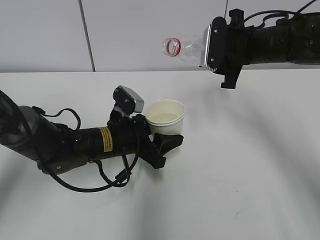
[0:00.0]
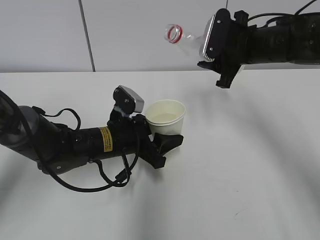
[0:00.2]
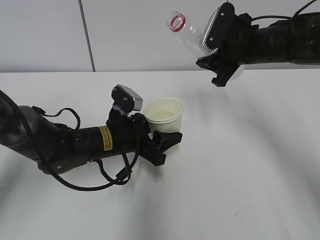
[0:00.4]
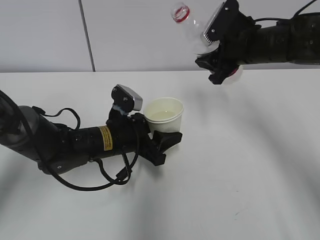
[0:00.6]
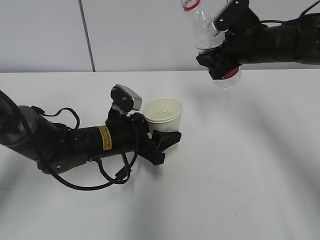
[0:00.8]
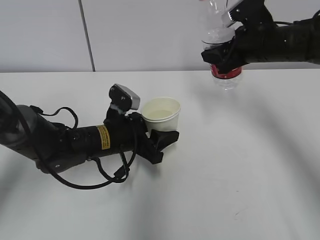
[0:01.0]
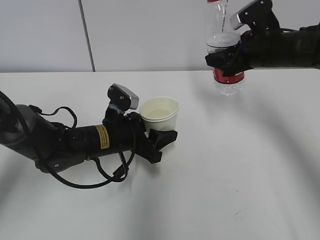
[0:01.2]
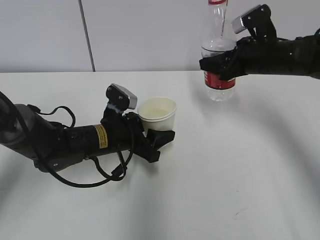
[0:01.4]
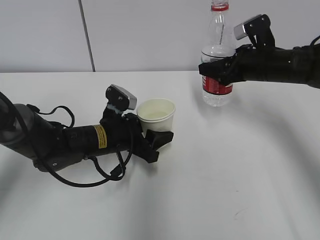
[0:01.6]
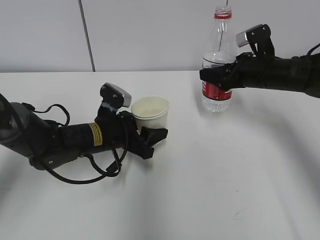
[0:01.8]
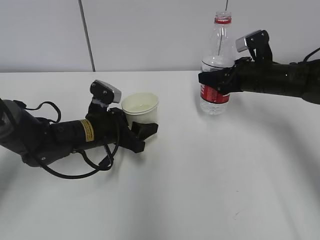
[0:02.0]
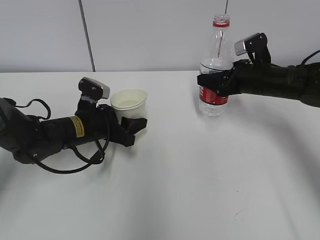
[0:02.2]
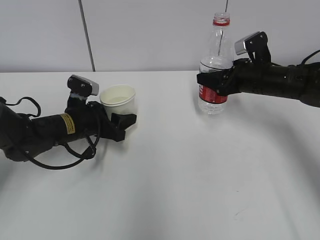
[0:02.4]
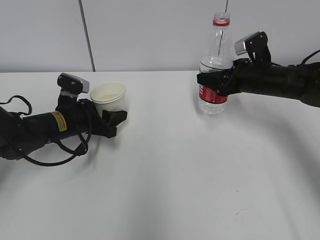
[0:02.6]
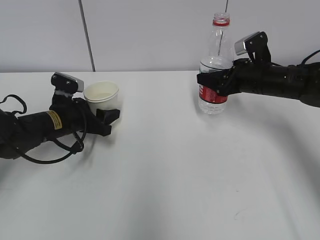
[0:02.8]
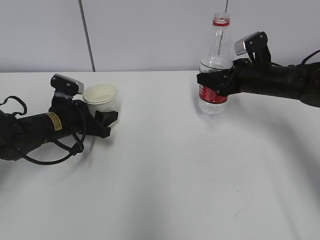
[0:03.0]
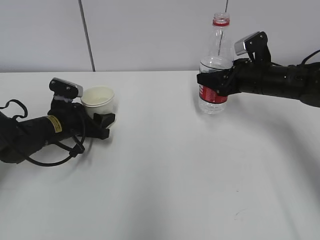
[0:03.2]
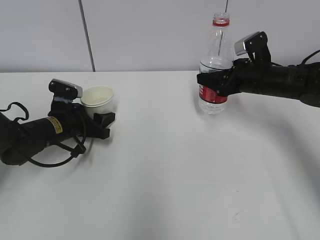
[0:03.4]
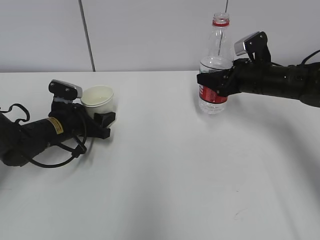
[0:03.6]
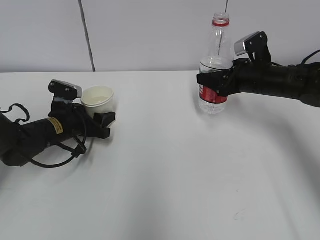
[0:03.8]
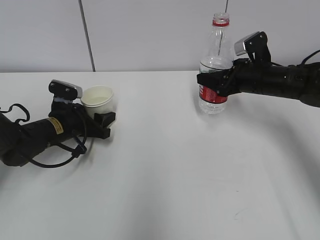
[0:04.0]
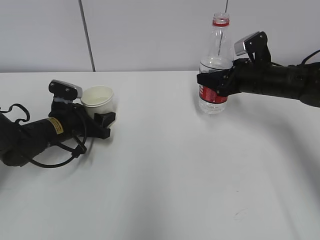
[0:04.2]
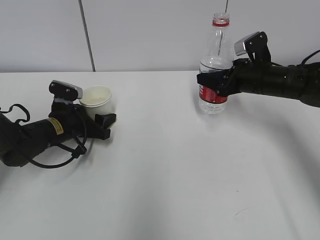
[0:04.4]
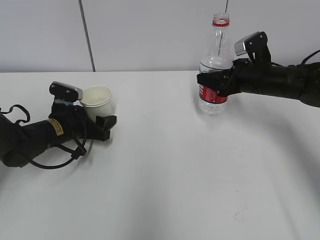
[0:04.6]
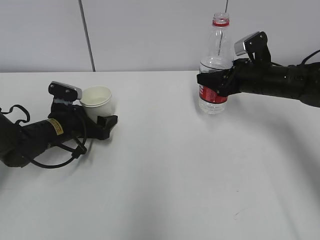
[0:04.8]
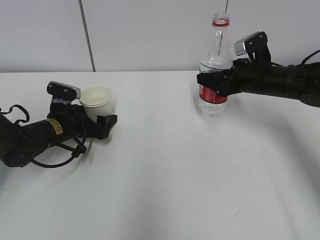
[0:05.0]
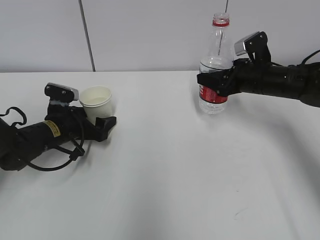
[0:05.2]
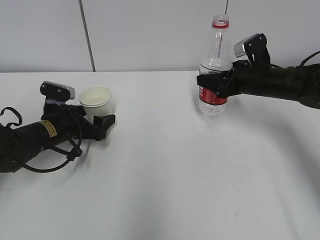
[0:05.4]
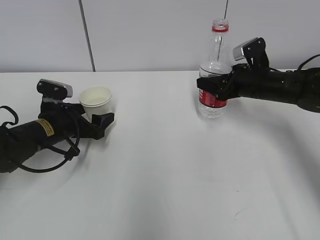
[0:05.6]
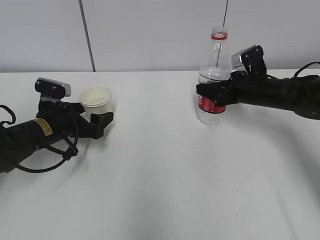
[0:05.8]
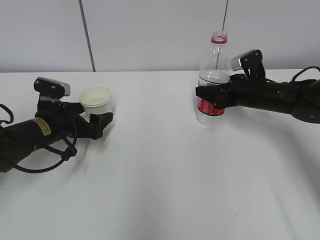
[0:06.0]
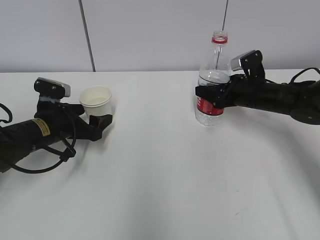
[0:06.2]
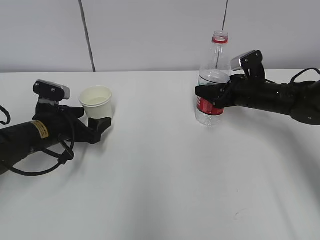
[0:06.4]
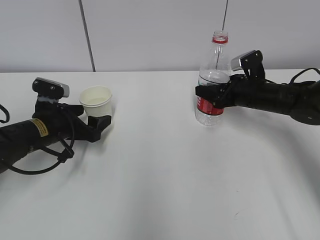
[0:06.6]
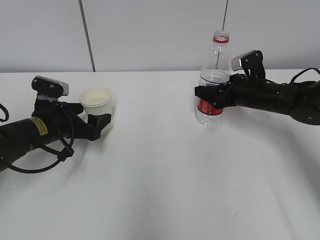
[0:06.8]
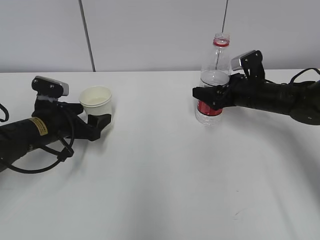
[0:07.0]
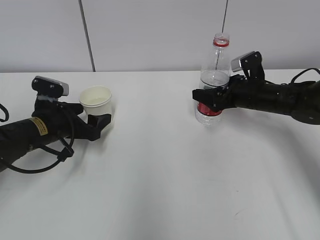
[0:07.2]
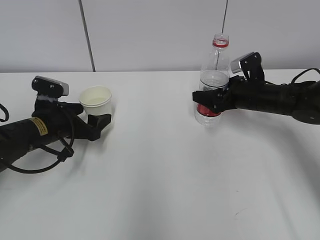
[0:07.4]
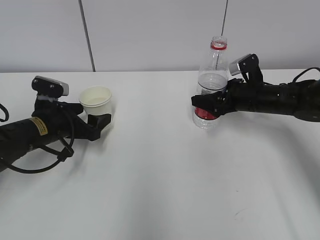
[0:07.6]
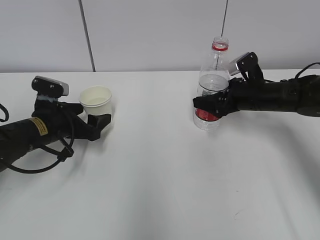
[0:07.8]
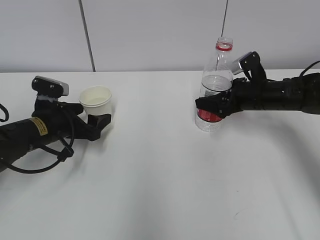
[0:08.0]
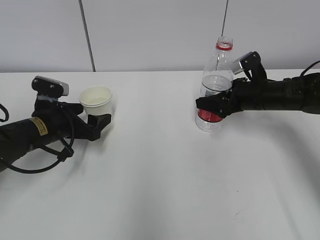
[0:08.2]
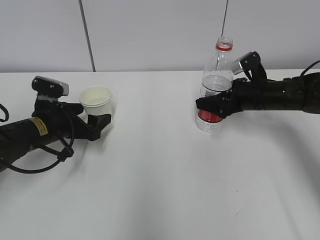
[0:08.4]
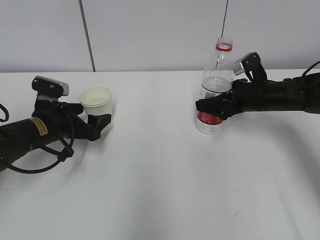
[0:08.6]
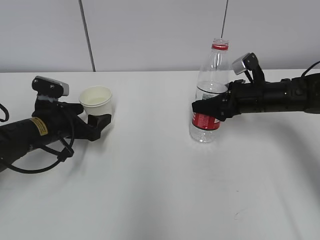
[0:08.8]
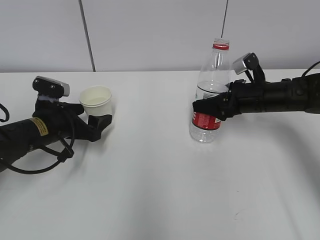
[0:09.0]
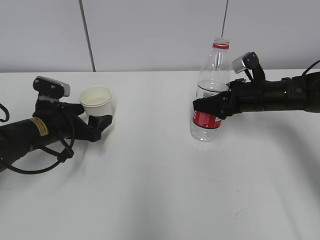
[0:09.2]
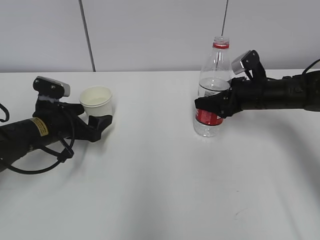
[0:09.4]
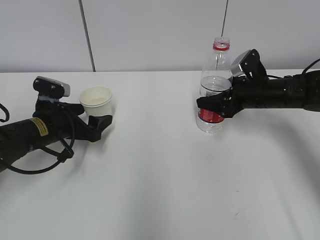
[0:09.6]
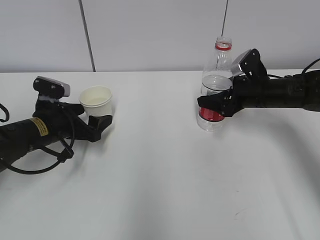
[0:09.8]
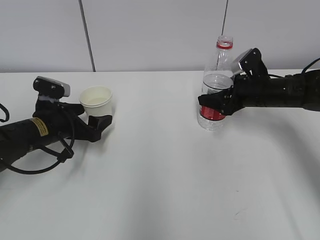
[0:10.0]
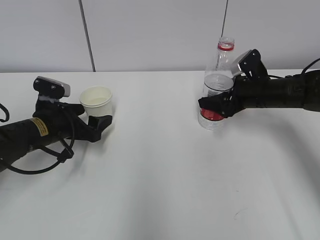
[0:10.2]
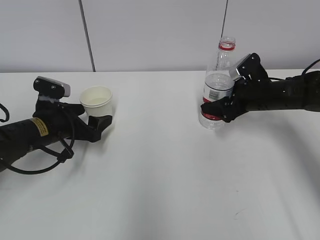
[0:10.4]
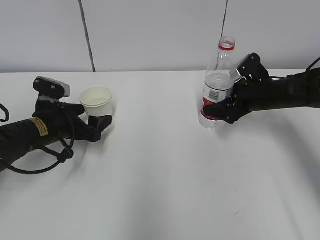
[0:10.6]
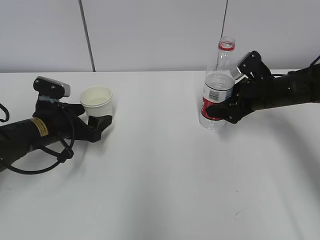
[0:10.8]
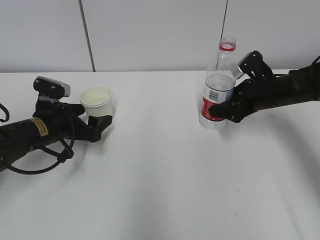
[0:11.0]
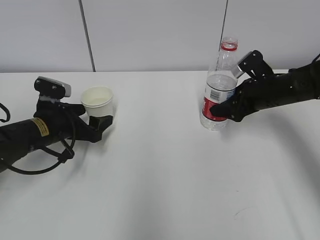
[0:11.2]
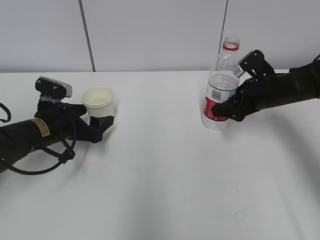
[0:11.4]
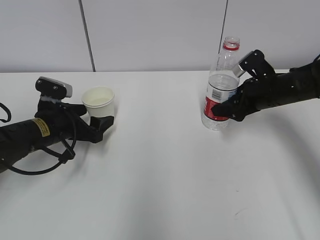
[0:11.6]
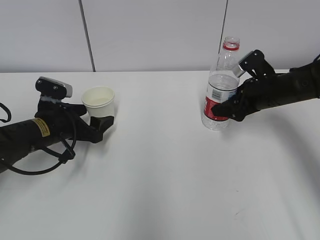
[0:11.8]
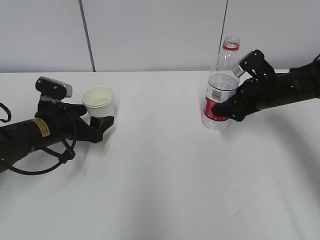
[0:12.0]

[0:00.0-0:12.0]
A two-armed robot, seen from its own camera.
Step, 0:00.0 to 0:01.8: Place the water bottle with the right hand.
0:00.0 to 0:01.6: The right gripper shifts by some 5 cm.
0:01.6 to 0:03.0: The left gripper goes roughly 10 cm to the left.
0:03.0 to 0:04.4: The grippers move only a little.
0:04.4 to 0:06.0: The left gripper opens its fingers.
0:06.0 to 0:07.6: The right gripper opens up.
0:07.6 to 0:09.0: The right gripper closes.
0:09.0 to 0:10.4: The right gripper opens up.
0:10.4 to 0:12.0: The right gripper closes its fingers.

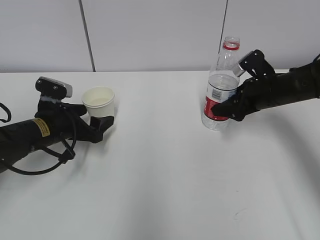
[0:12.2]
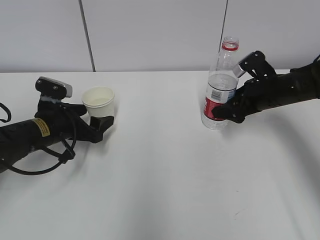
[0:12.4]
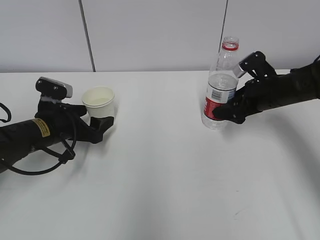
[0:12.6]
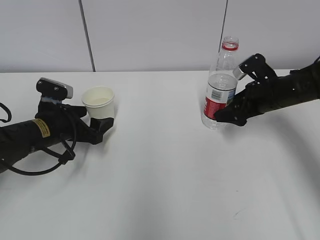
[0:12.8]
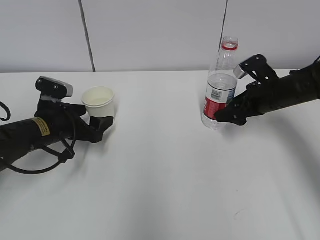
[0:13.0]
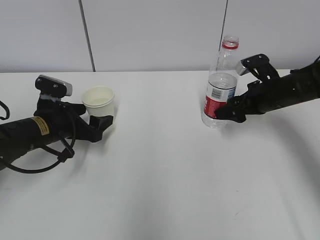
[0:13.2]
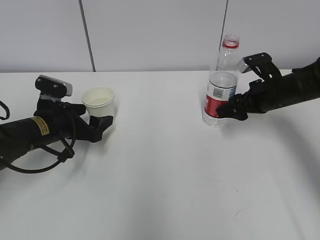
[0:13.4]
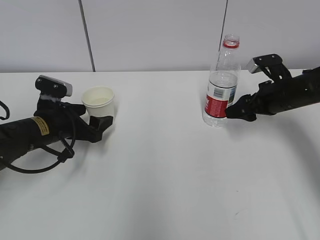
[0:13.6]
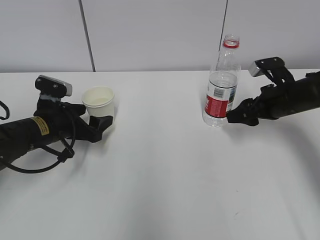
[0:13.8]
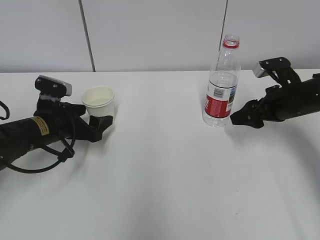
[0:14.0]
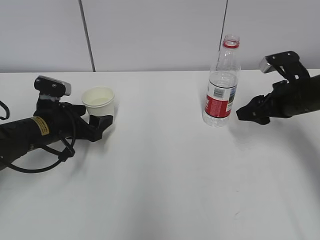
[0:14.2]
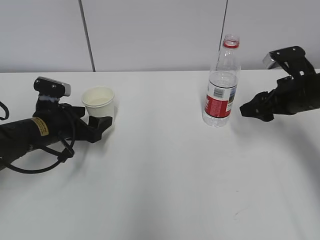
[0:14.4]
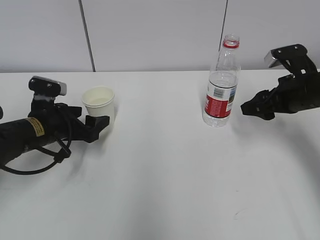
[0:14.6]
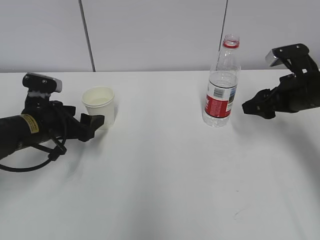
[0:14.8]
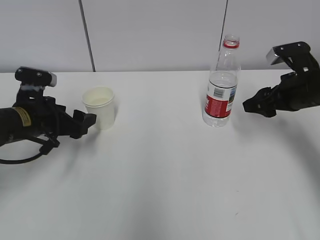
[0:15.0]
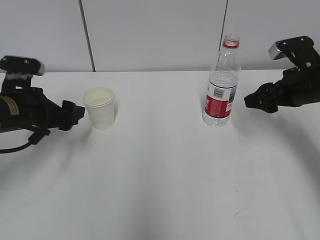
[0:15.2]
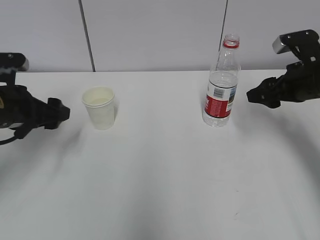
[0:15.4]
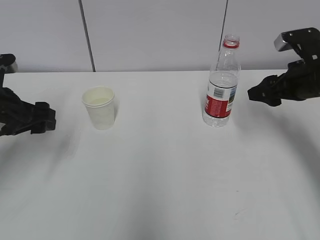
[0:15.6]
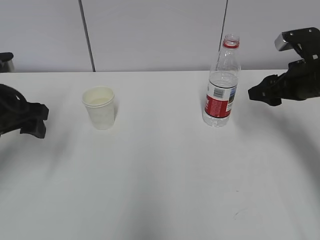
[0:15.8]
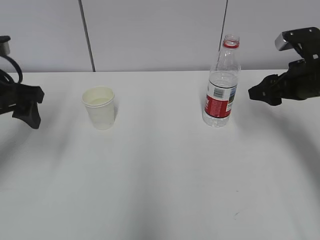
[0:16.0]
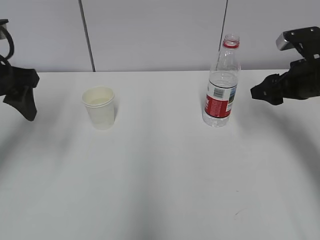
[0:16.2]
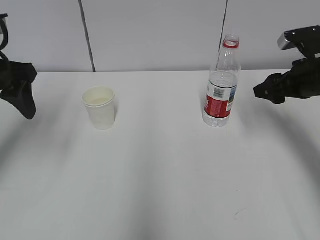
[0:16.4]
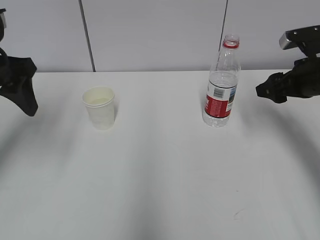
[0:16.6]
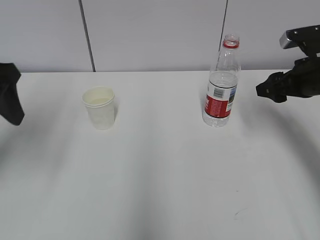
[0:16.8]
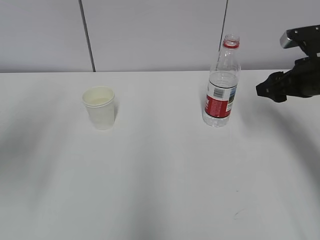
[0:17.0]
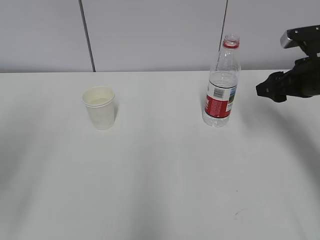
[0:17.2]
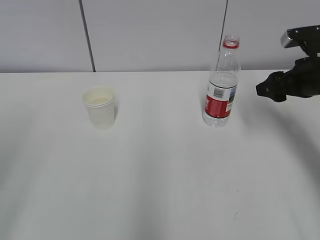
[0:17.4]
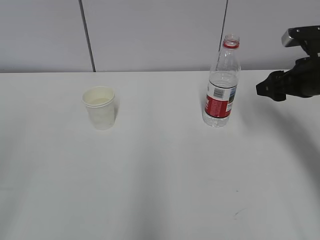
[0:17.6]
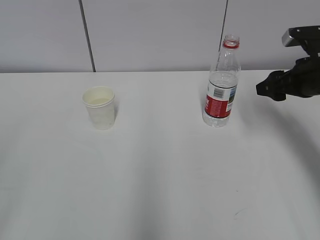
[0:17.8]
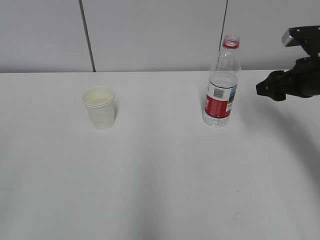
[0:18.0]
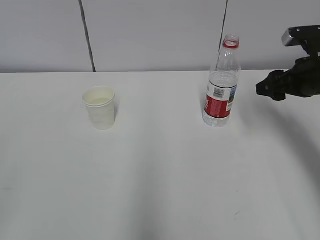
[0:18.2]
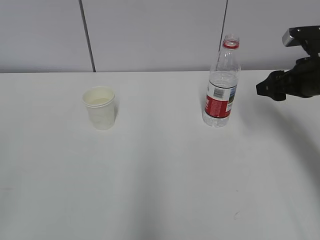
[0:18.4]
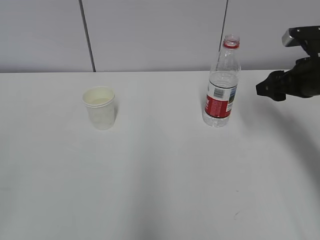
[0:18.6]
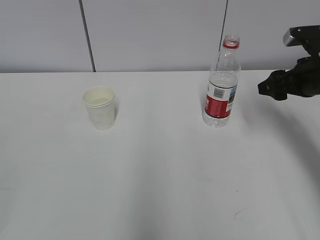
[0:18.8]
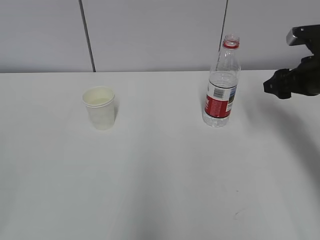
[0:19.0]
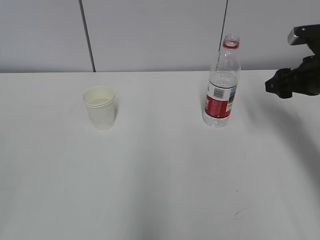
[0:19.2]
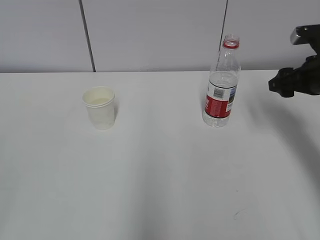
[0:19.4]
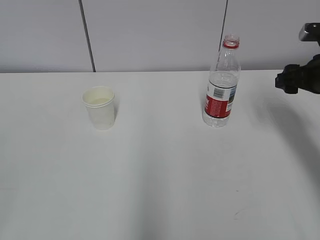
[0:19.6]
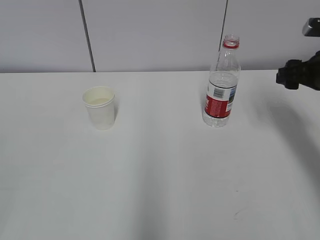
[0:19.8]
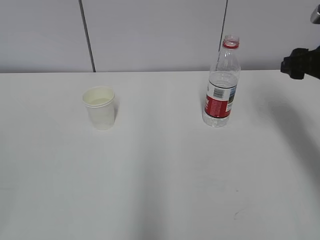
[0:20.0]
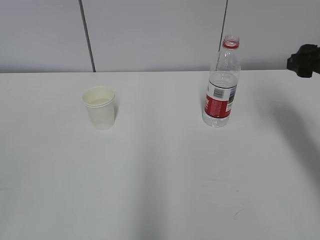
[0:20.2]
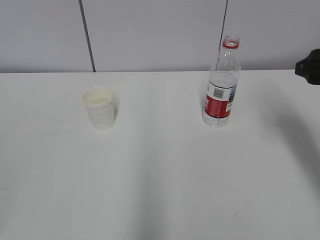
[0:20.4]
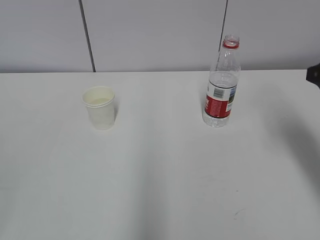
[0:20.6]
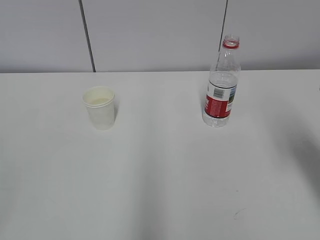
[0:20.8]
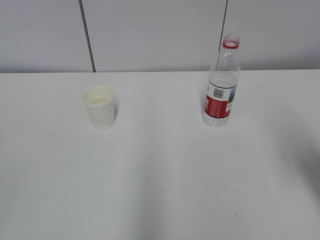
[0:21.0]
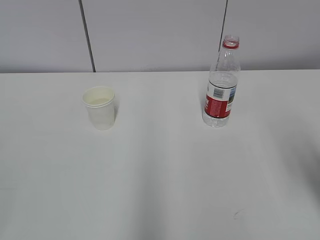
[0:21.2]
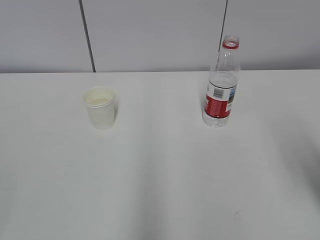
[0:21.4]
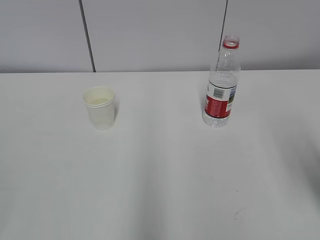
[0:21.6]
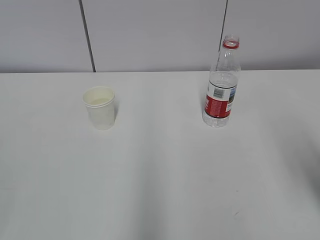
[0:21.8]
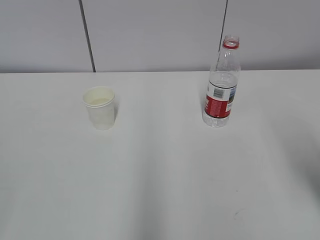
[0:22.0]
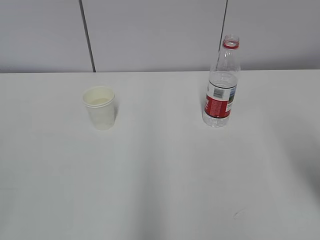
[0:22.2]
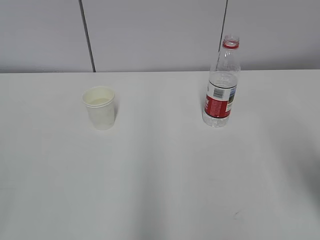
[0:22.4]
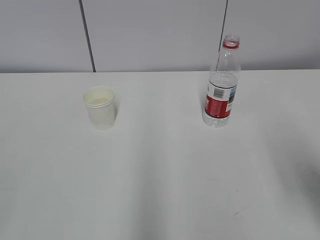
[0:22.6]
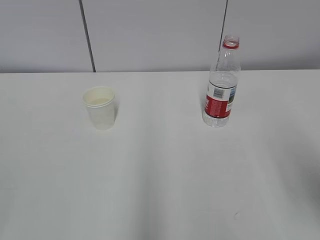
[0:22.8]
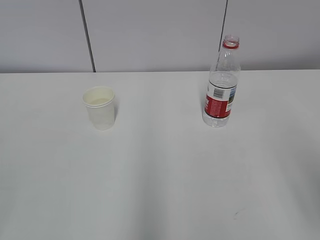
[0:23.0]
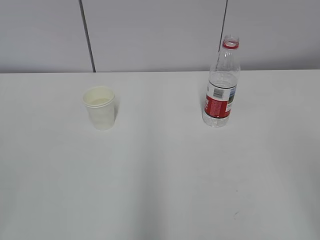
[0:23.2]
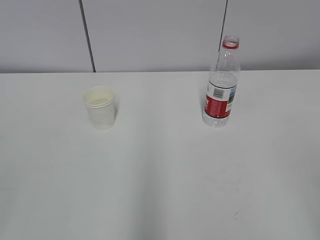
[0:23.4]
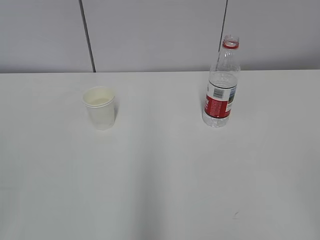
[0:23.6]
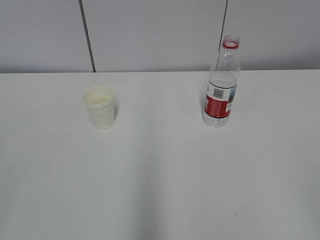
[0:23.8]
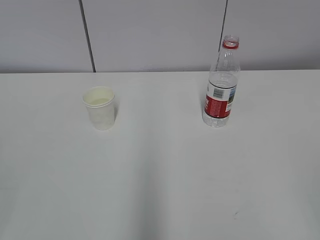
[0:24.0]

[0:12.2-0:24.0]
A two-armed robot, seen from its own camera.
0:12.2 to 0:13.6: The right gripper opens, then closes once more.
0:13.6 to 0:15.2: The two grippers go about 5 cm upward.
0:15.2 to 0:16.6: The left gripper is displaced upward by roughly 15 cm.
0:16.6 to 0:18.2: The left gripper travels backward by roughly 30 cm.
0:18.2 to 0:19.6: The grippers make only small movements.
0:19.6 to 0:21.0: The right gripper is displaced backward by approximately 20 cm.
0:22.6 to 0:24.0: The right gripper is displaced backward by approximately 20 cm.
